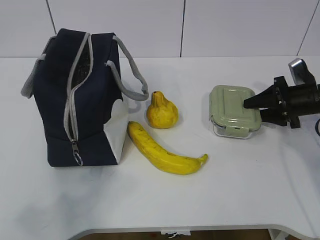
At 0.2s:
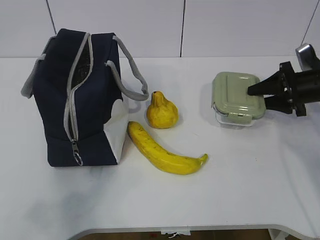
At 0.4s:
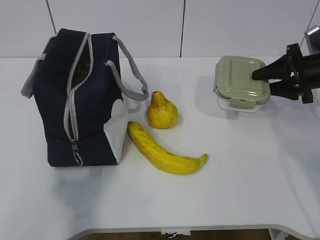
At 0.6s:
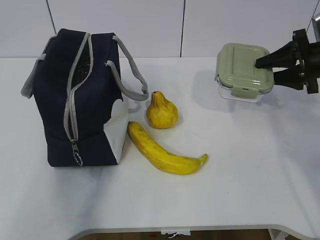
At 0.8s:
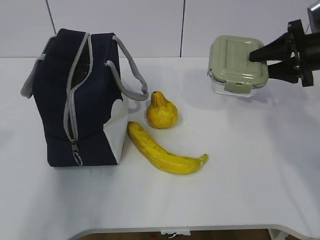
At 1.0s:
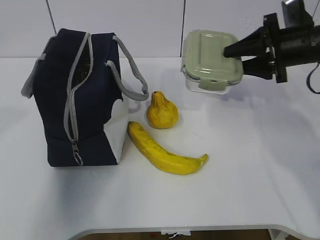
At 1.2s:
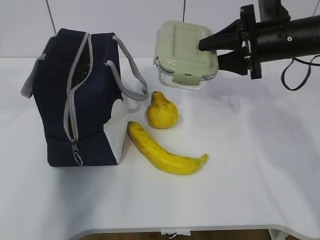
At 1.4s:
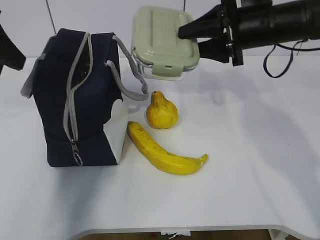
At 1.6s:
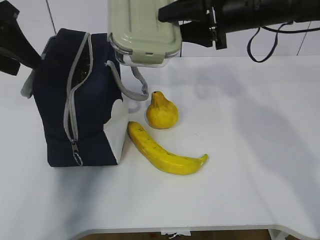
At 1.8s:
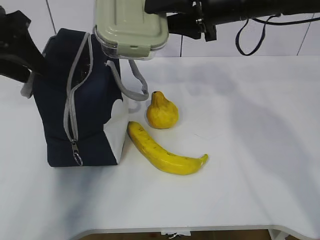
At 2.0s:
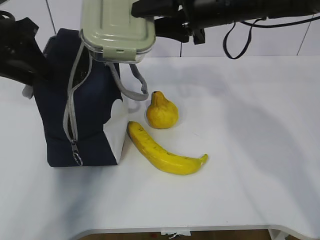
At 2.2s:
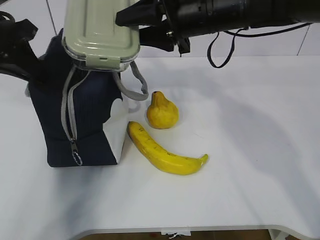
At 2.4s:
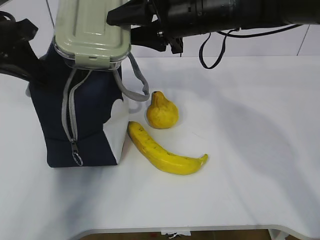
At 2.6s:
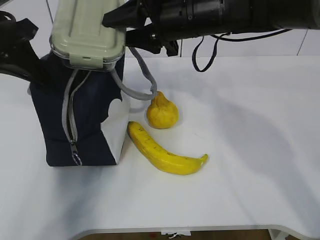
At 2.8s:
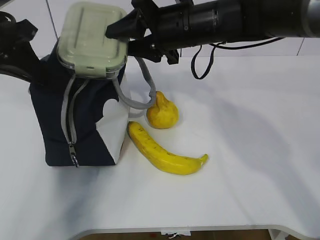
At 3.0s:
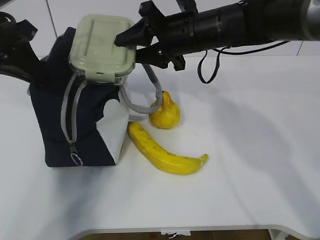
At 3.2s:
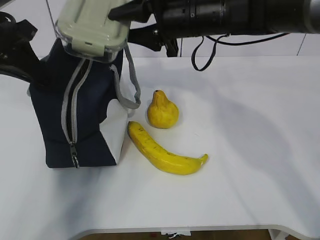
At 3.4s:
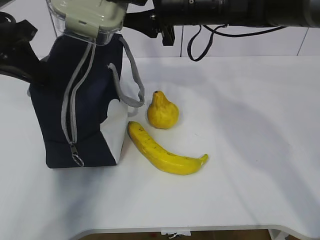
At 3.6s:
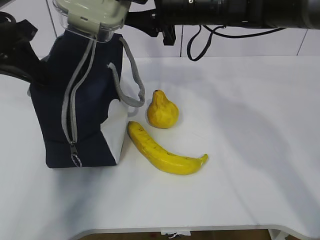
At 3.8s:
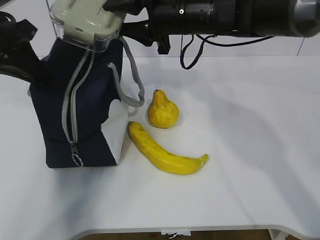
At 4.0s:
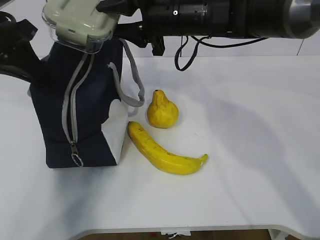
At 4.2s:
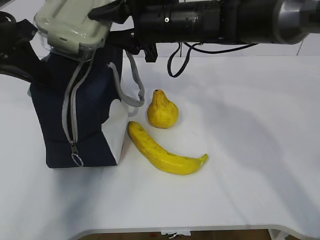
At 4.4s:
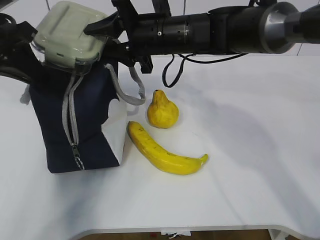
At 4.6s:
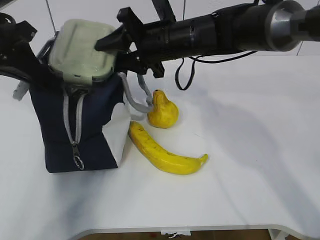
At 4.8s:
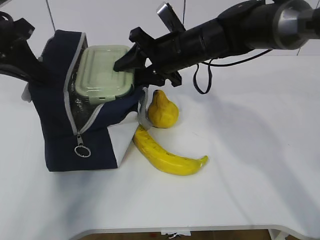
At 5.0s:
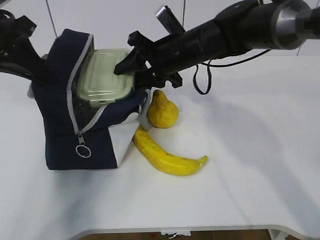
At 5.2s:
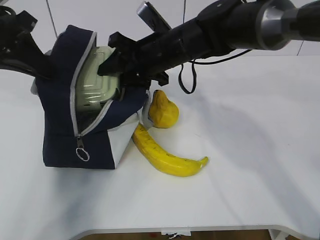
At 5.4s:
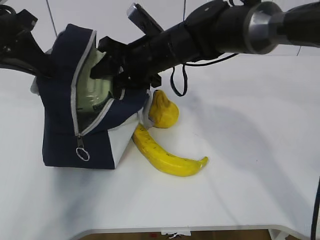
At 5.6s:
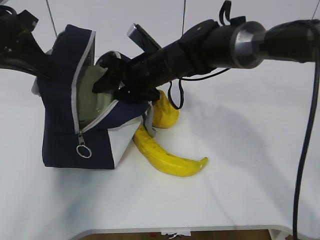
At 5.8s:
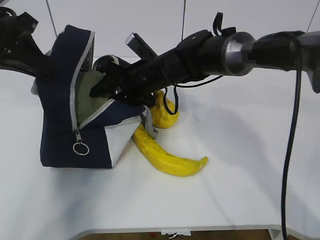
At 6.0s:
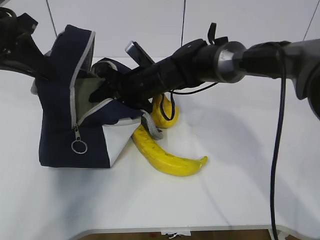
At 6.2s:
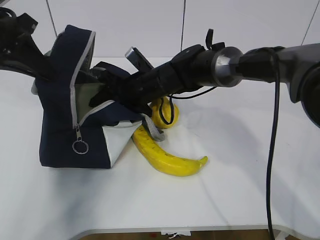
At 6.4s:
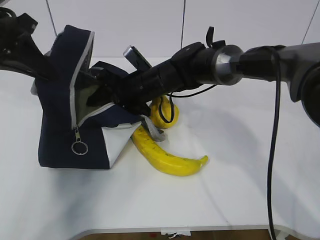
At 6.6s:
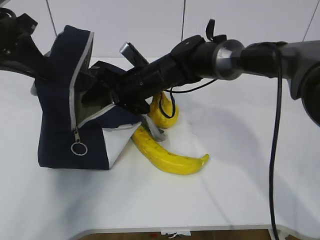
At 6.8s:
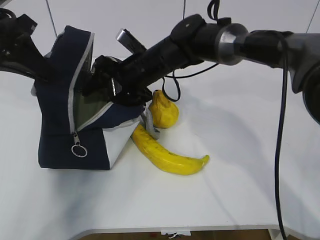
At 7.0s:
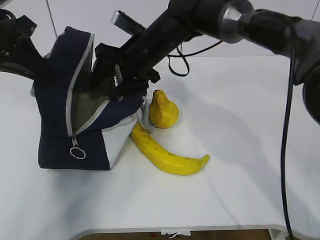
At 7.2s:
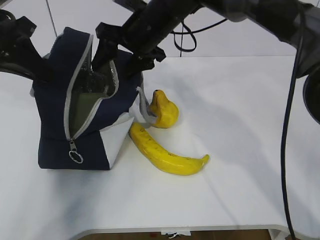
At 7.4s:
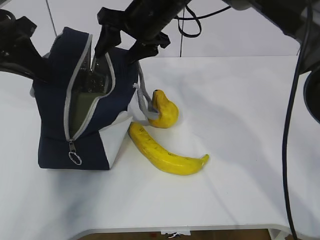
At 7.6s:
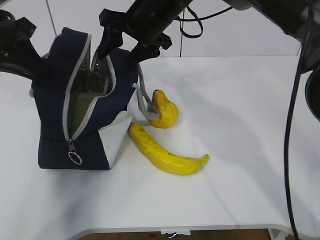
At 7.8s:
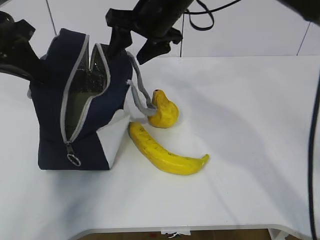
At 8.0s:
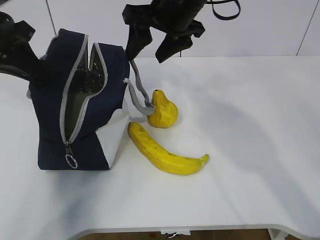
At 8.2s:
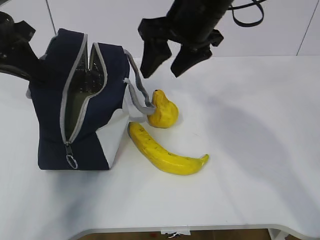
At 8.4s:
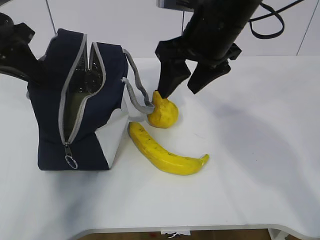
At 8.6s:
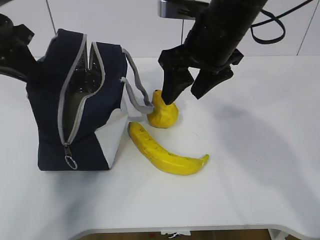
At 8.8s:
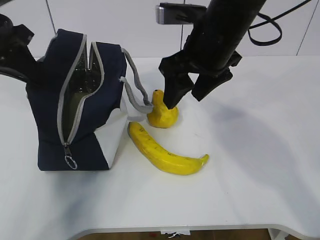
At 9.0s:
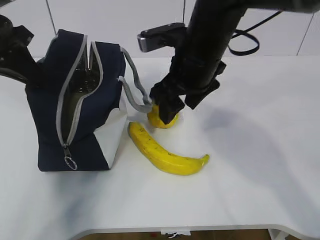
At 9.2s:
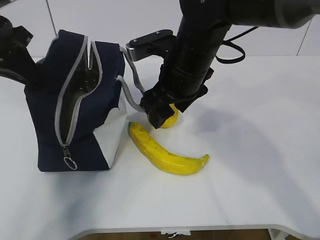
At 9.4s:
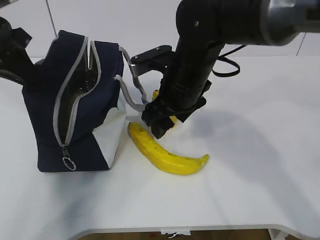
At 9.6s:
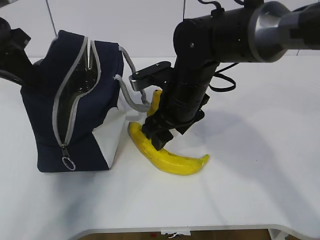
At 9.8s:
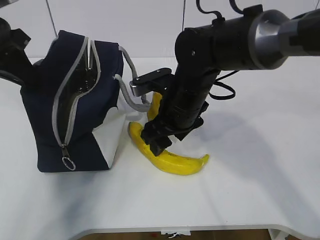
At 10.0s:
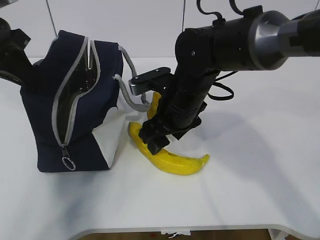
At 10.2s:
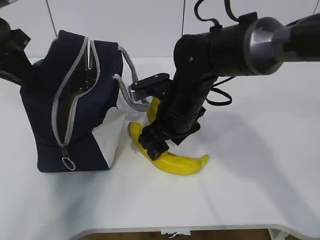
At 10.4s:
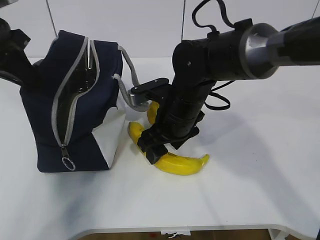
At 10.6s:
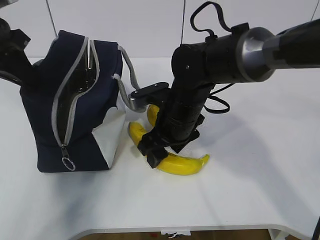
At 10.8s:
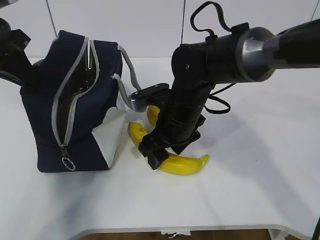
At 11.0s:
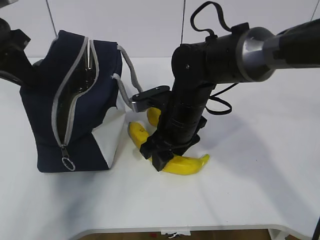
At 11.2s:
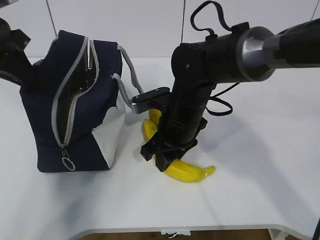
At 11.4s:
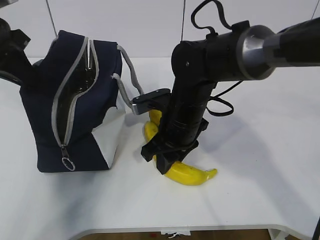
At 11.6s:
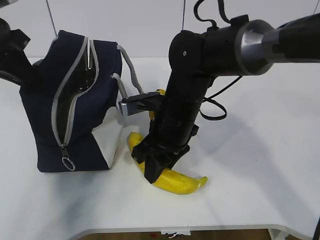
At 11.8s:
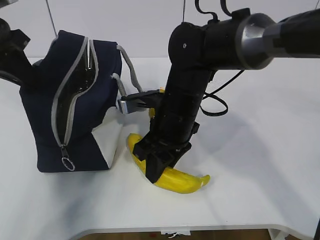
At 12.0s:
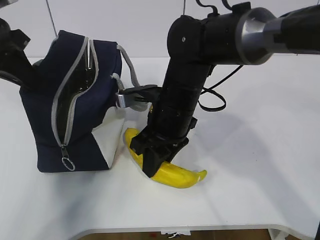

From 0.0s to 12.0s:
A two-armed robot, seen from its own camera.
Step, from 0.0s to 2.2s: Grab the lunch bag with your left hand.
Step, from 2.4s to 4.2s: Place it into the bag with your right hand.
Step, from 4.4s to 8.0s: Grab the banana with your right hand.
Step, from 8.2s to 12.0s: Place it into the bag with your right hand.
From 0.0s to 1.6s: The left gripper travels forward by approximately 30 cm. Meanwhile the right gripper moves to the left and upward, roughly 25 cm.
From 1.6s to 3.0s: The right gripper is displaced to the left by some 5 cm. The left gripper closes up.
From 3.0s to 4.4s: There are only small adjustments of the grippers.
From 4.4s to 6.0s: The right gripper shifts some 10 cm downward.
From 6.0s to 7.6s: The right gripper heads upward, covering some 15 cm.
From 7.6s to 9.0s: The right gripper is displaced backward by some 10 cm.
From 9.0s to 10.4s: The right gripper is displaced downward by about 10 cm.
From 10.4s to 12.0s: The right gripper closes.

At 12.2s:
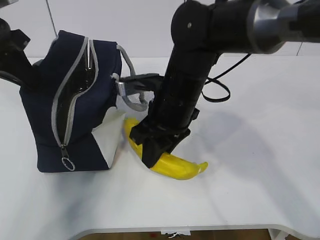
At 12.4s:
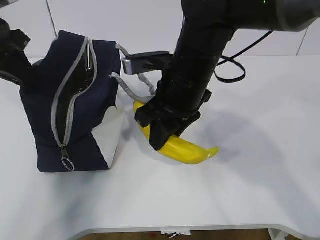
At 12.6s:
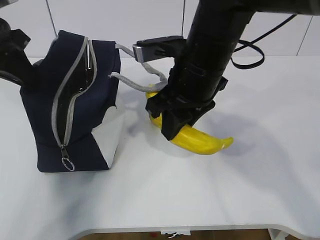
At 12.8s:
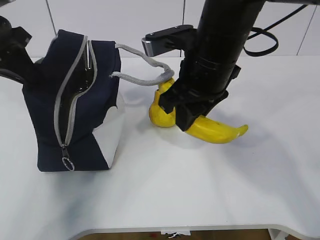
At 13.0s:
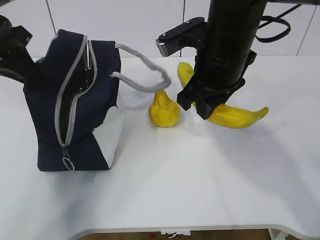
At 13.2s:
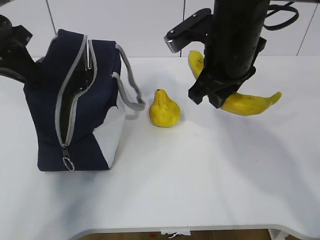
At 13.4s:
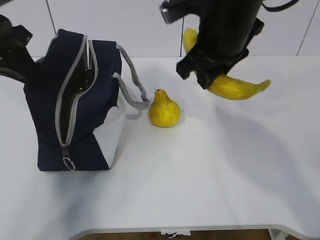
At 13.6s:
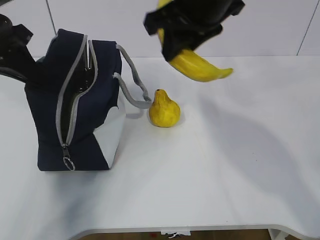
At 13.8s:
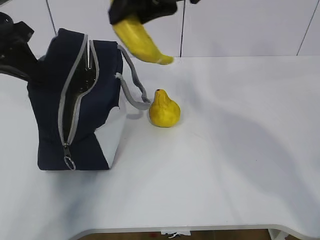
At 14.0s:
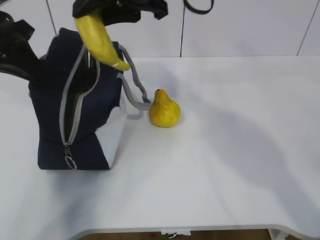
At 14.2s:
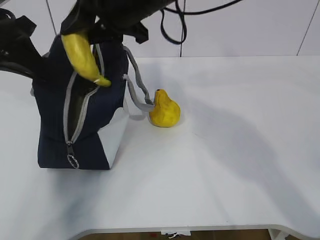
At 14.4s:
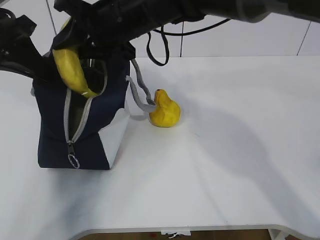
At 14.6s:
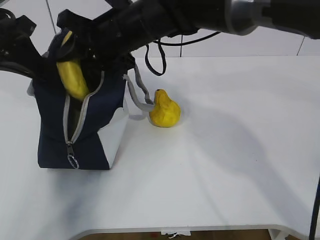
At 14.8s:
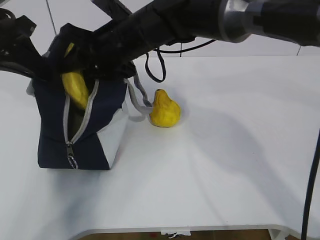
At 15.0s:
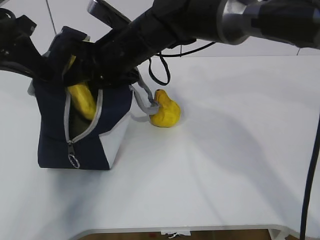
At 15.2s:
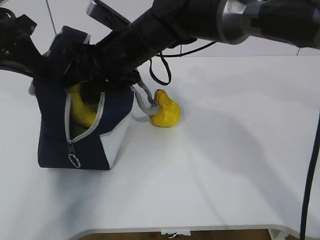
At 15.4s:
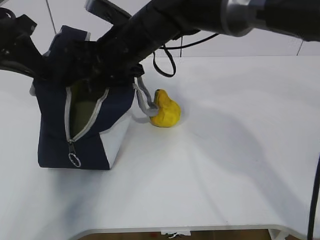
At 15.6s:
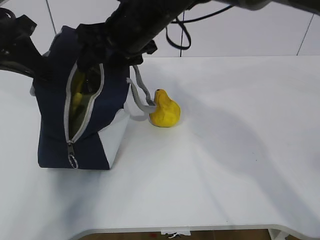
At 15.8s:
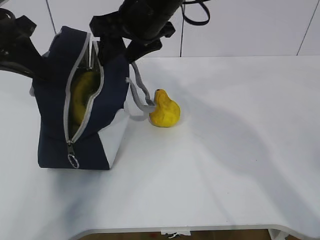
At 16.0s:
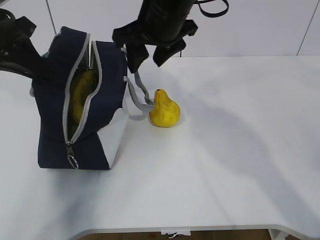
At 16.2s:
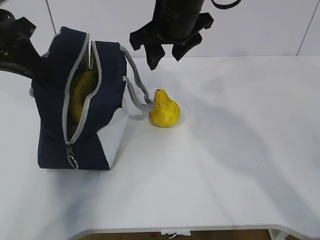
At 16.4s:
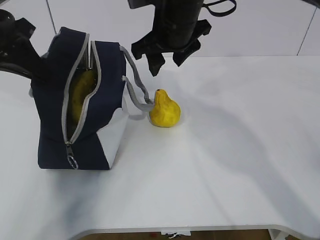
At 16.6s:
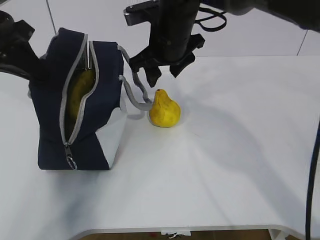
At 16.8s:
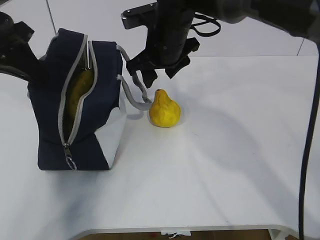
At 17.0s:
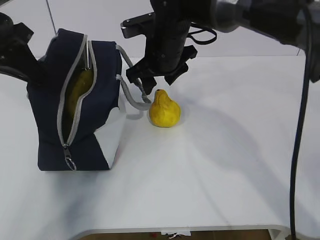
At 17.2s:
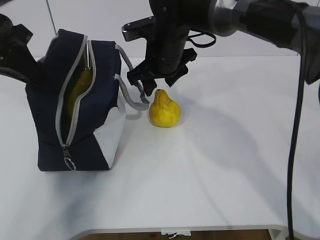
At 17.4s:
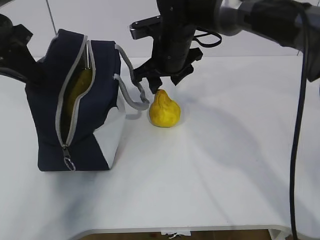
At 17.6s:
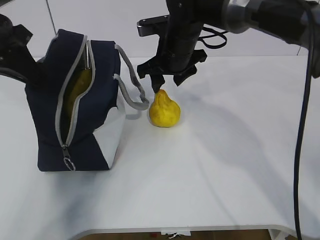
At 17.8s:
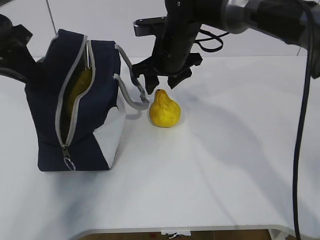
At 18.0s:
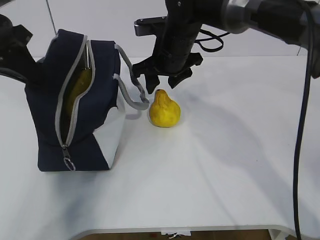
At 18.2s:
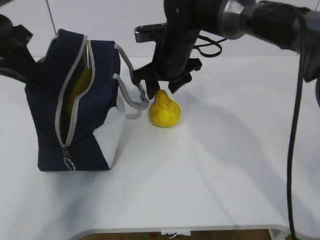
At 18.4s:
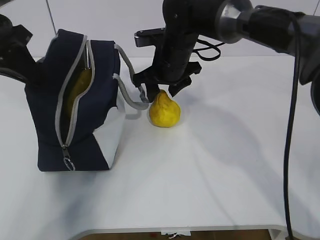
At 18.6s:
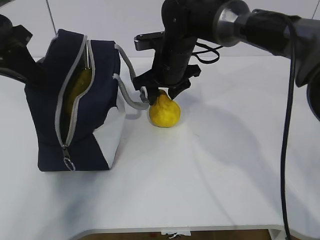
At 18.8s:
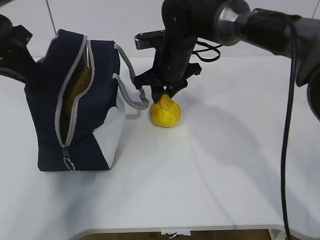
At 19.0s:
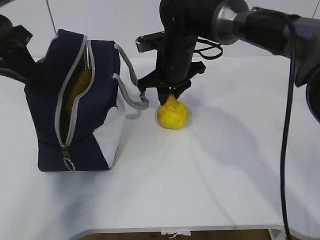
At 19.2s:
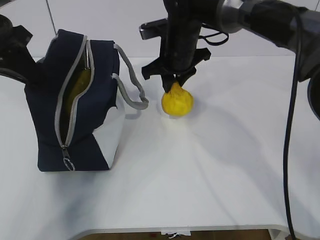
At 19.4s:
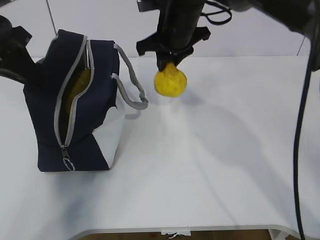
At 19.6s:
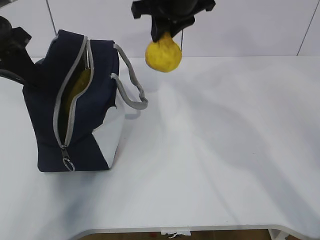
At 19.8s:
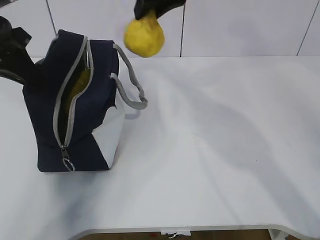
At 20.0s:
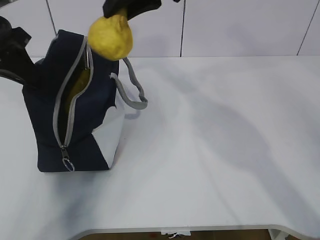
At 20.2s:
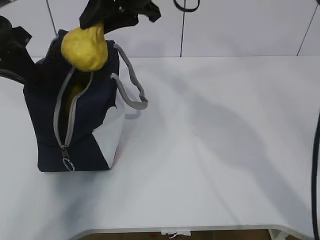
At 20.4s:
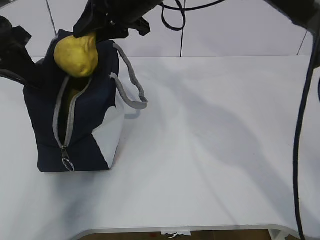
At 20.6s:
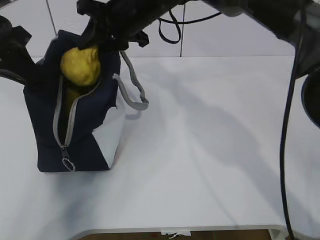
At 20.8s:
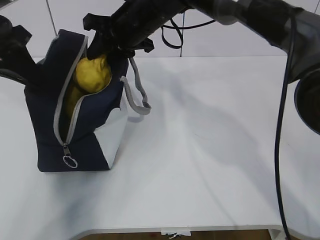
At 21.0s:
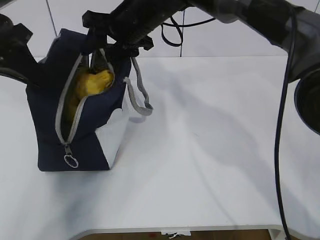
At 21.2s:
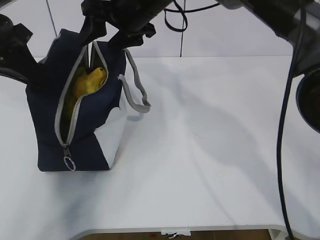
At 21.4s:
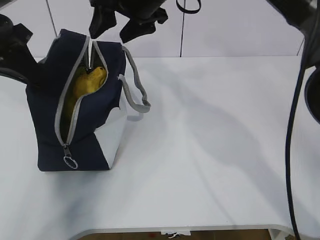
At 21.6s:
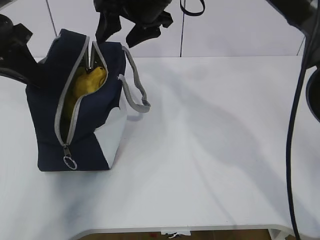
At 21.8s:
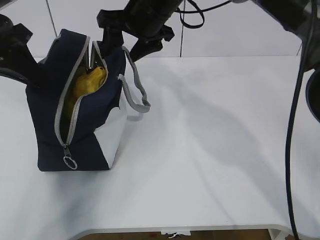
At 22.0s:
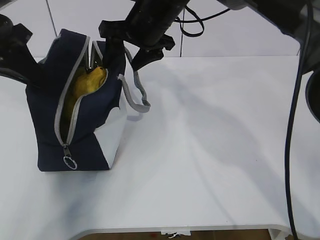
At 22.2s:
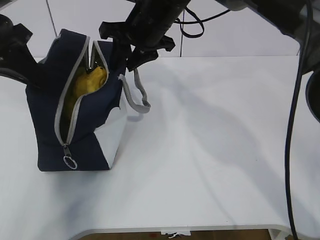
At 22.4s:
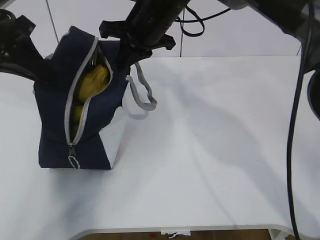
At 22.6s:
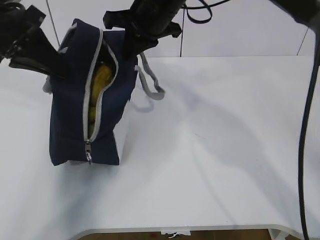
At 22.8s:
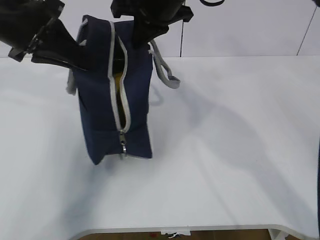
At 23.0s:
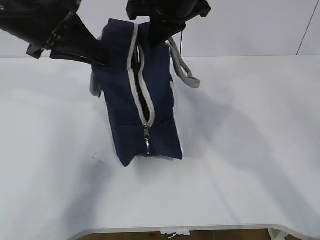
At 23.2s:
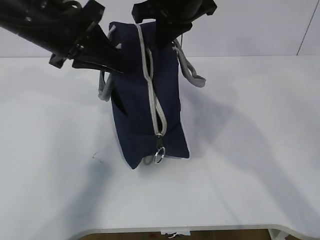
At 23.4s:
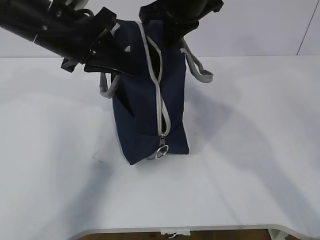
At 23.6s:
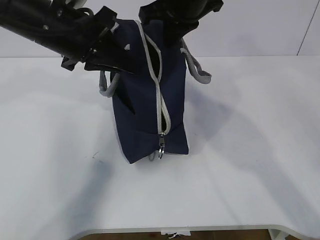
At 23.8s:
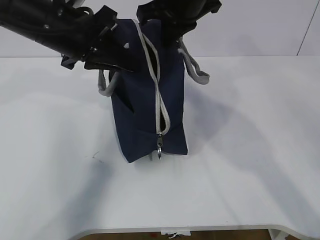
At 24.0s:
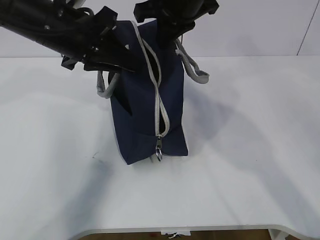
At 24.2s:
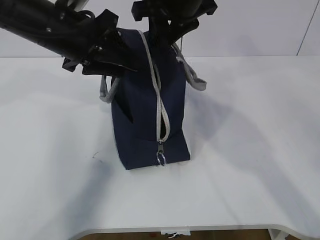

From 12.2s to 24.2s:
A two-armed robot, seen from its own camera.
Step, from 12.2s to 14.4s: Grab the pear with your right hand.
Step, from 16.6s to 17.2s: Grab the lunch bag with your right hand.
Step, from 17.4s to 18.8s: Move the lunch bag to the right.
From 12.2s to 13.8s: The right gripper travels upward by some 15 cm.
From 13.8s to 15.2s: The right gripper goes about 15 cm downward, to the left and forward.
From 15.2s to 16.6s: The right gripper heads to the right, covering roughly 5 cm.
From 16.6s to 18.2s: The right gripper heads downward, covering roughly 5 cm.
From 18.2s to 19.8s: The right gripper goes roughly 15 cm upward, and closes up.
From 19.8s to 21.2s: The right gripper travels downward by roughly 5 cm, and opens up.
From 21.2s to 22.6s: The right gripper closes.
From 22.6s to 24.2s: The left gripper goes some 10 cm to the right, and opens up; the right gripper opens up.
